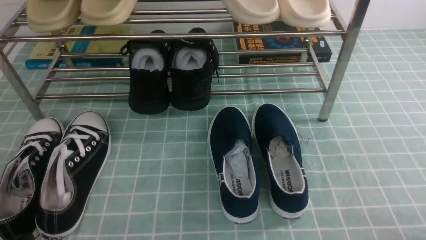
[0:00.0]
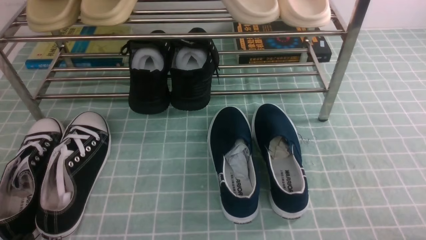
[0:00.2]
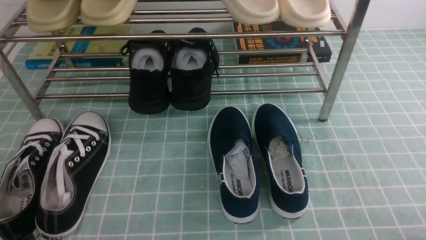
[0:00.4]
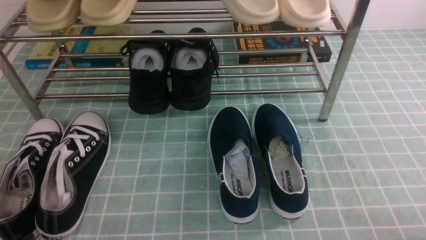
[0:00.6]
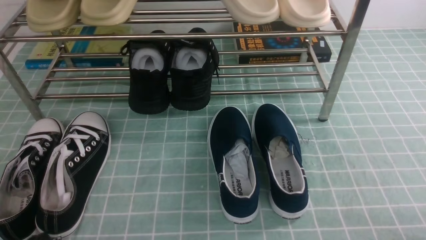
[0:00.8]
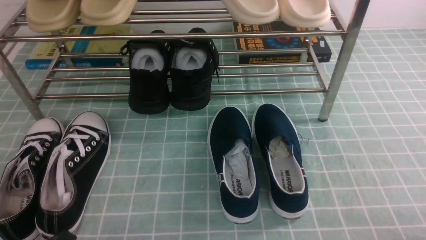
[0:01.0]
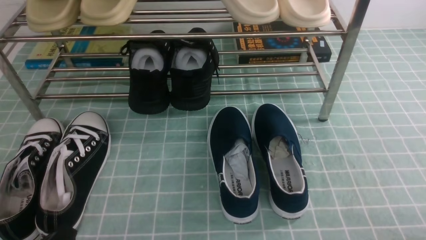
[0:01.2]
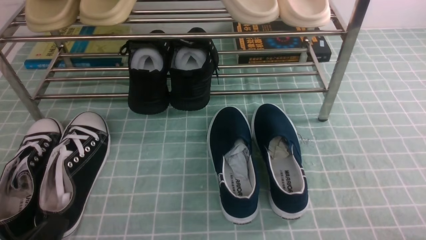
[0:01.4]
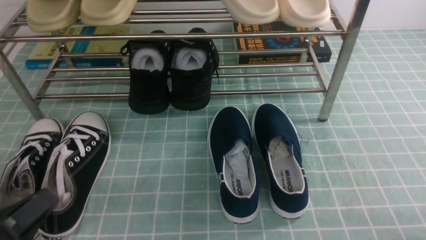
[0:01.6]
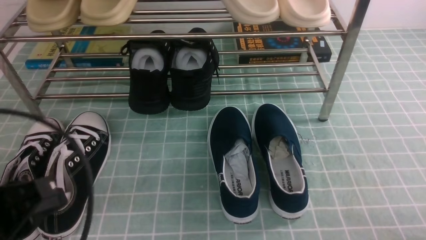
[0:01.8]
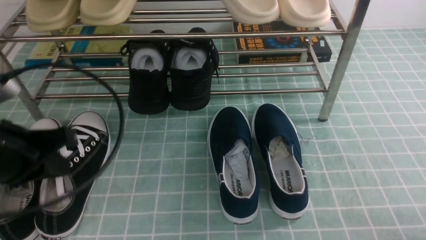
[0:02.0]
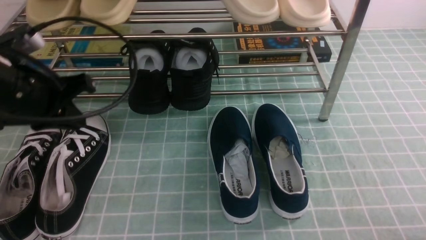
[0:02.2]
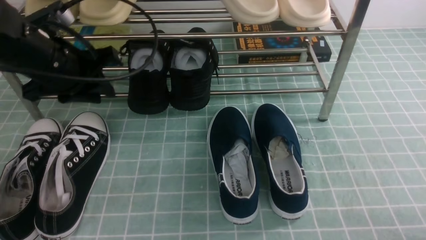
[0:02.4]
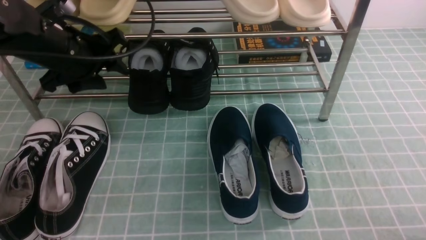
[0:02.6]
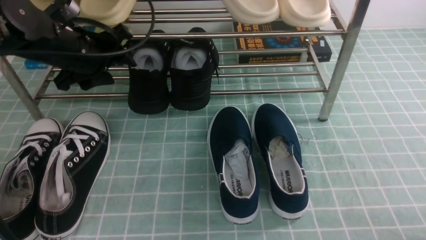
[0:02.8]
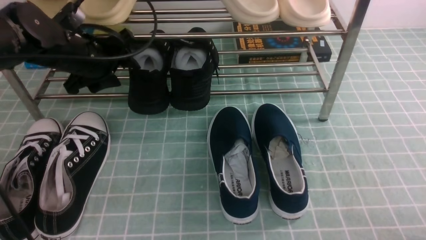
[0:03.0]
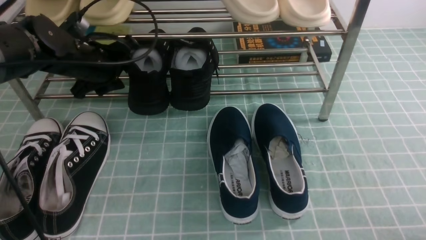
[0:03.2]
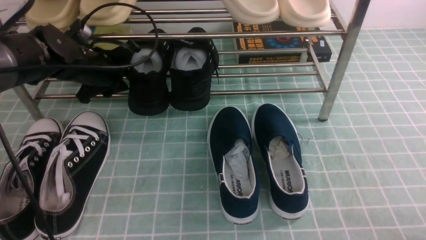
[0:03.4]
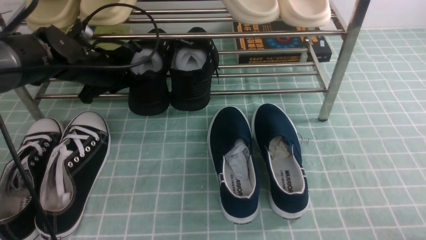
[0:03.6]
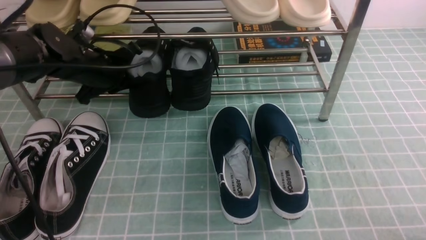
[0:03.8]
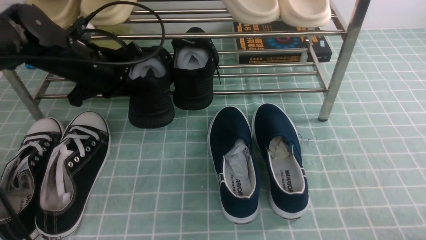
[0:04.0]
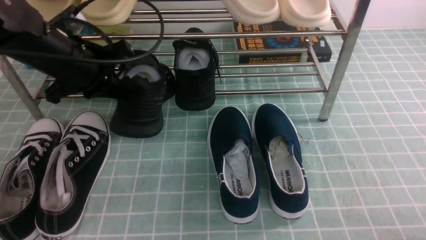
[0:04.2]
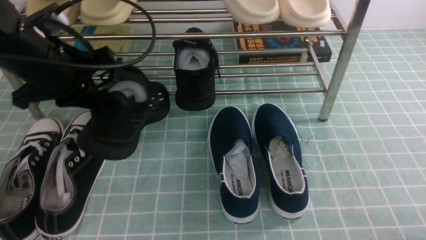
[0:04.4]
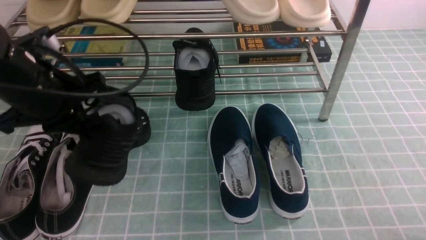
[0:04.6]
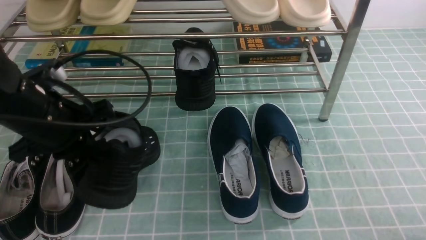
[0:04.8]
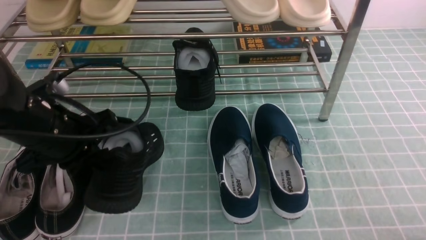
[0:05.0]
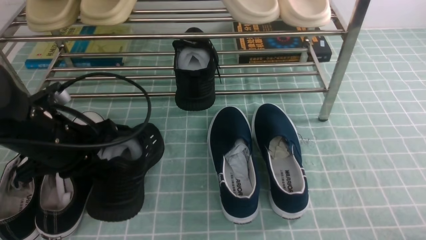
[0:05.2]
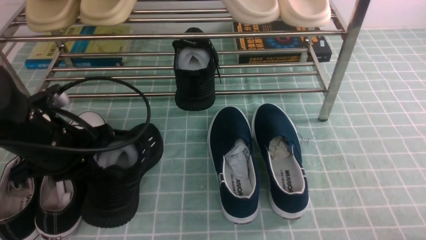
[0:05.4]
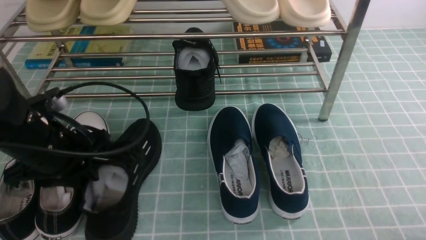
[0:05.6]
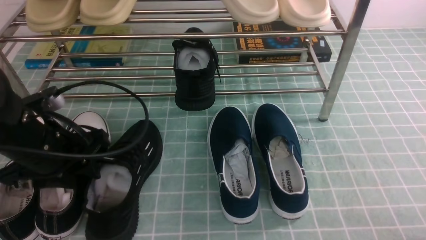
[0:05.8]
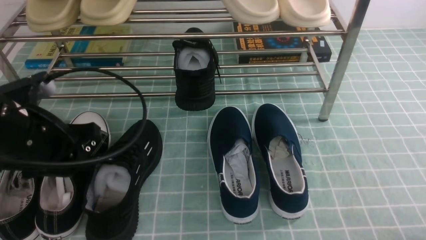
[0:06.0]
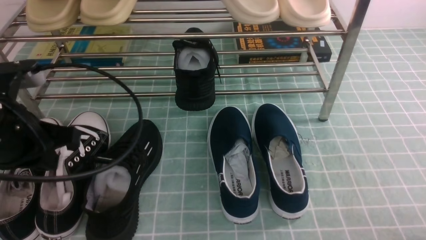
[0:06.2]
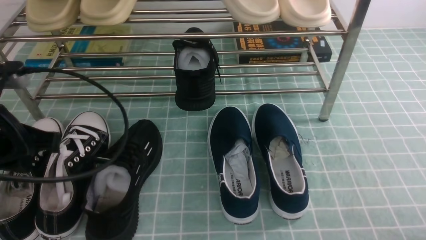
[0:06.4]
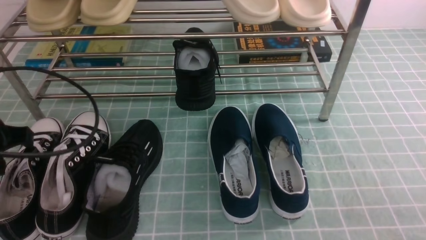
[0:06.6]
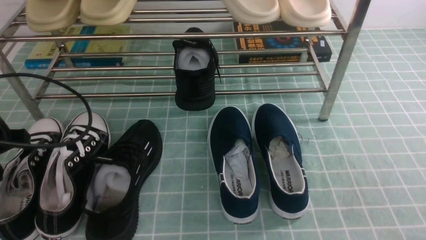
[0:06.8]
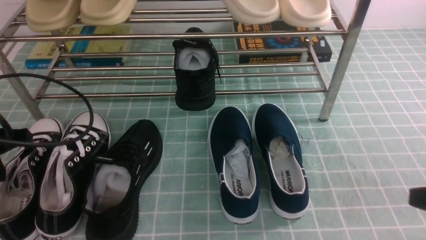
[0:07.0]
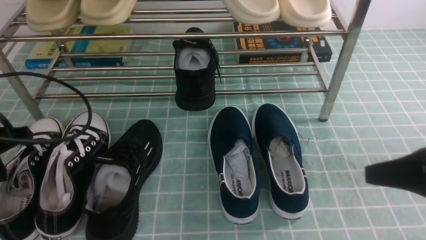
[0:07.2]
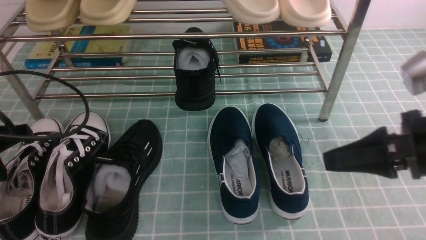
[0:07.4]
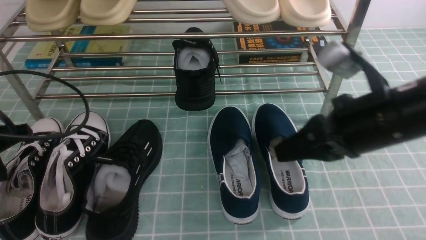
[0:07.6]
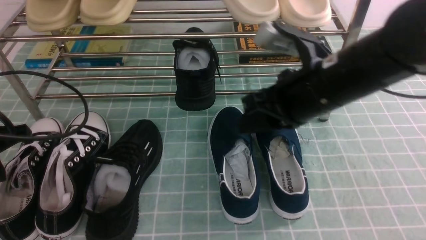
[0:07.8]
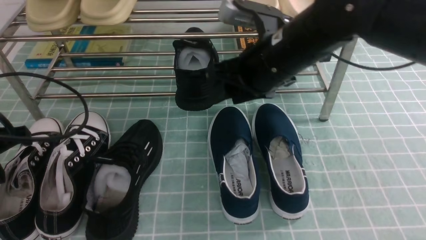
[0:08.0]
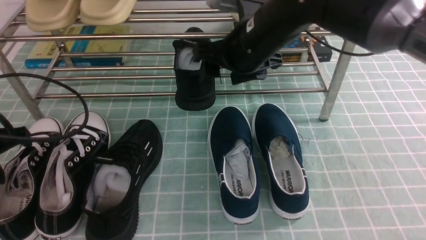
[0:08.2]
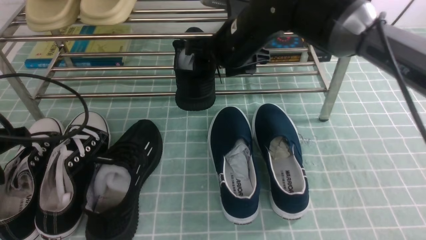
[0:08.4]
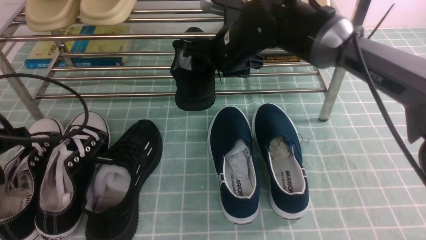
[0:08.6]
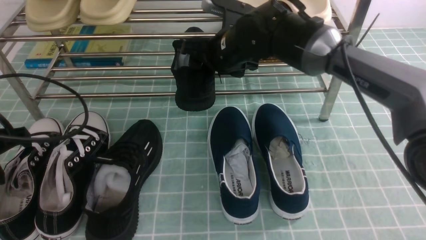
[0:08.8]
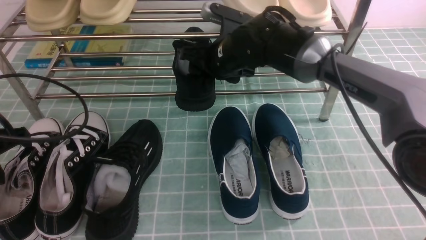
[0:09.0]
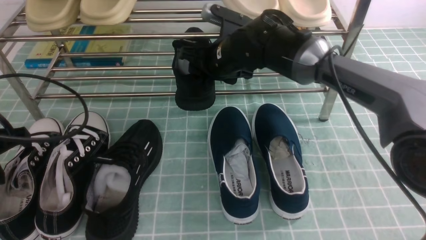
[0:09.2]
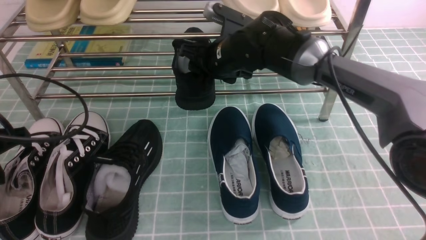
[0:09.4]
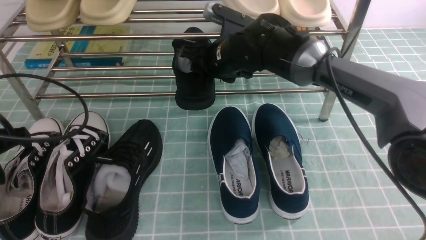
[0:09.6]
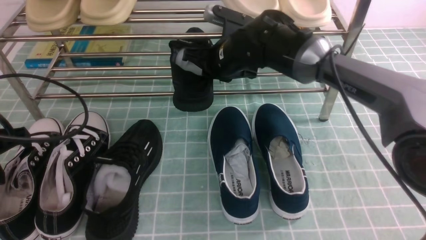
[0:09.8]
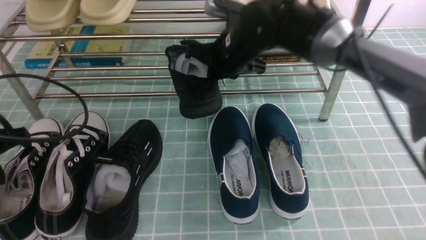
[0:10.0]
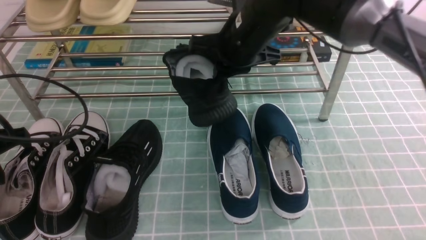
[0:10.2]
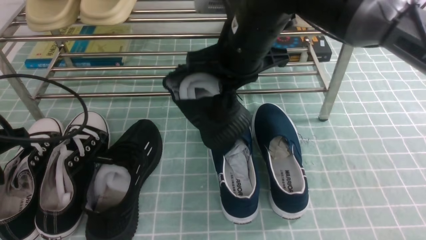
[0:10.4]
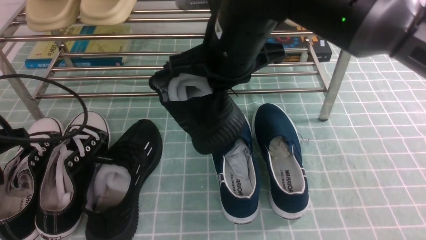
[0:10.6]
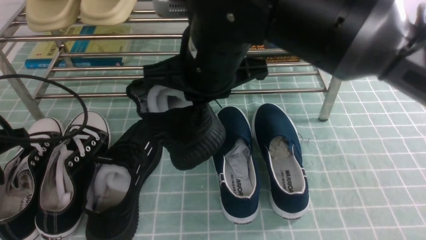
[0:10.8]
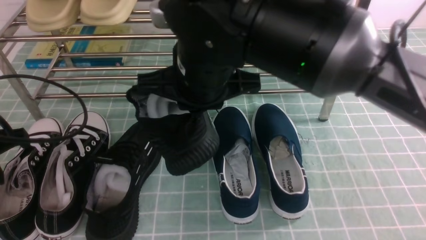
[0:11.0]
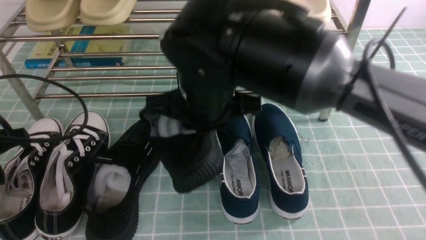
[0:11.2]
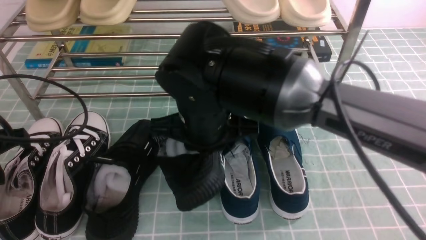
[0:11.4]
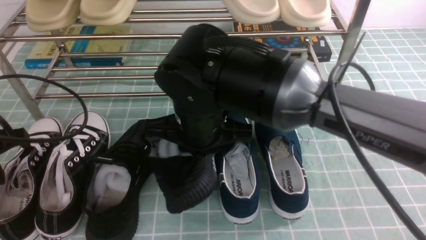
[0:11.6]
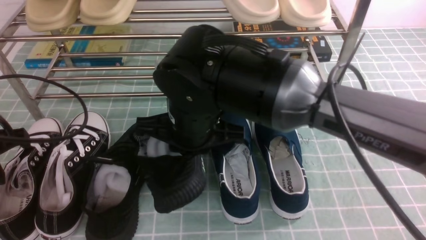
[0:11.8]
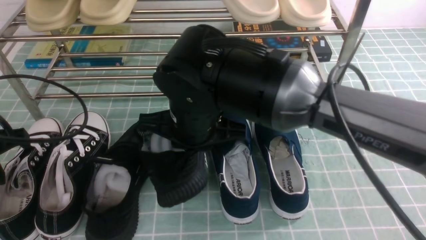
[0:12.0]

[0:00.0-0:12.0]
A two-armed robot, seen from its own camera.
Step, 0:00.0 to 0:03.8: use the left arm to clamp a shoe in the middle of the shoe rack.
Step, 0:04.2 to 0:05.8: Use your left arm to remove the clamped shoe from the shoe rack and put it down.
Step, 0:06.0 to 0:10.0: use the right arm to clamp a shoe in the middle of the shoe rack.
0:00.0 to 0:01.6: The left gripper is displaced upward by roughly 10 cm.
0:01.6 to 0:03.0: The left gripper goes approximately 30 cm forward, and opens its fingers.
0:03.0 to 0:04.4: The left gripper shifts roughly 10 cm backward, and closes.
0:04.4 to 0:06.0: The left gripper travels backward by roughly 5 cm, and opens its fingers.
0:06.0 to 0:07.6: The right gripper moves forward, to the left and upward, some 30 cm. The left gripper shifts some 5 cm to the left, and closes.
0:07.6 to 0:09.0: The right gripper shifts some 25 cm forward and to the left, and opens its fingers.
0:09.0 to 0:10.4: The right gripper goes roughly 15 cm backward and upward, and closes up.
0:10.4 to 0:12.0: The right gripper moves downward, to the left and backward, some 10 cm.

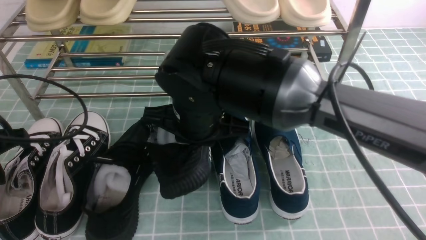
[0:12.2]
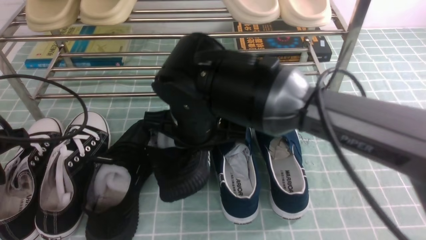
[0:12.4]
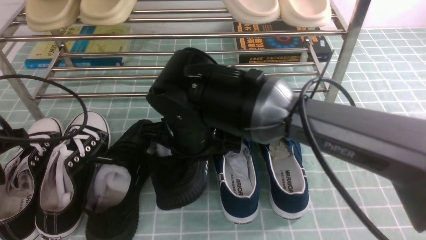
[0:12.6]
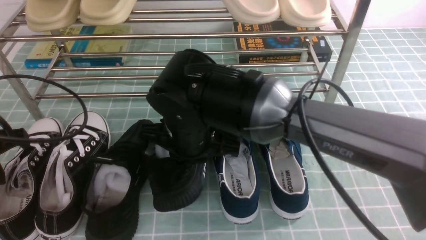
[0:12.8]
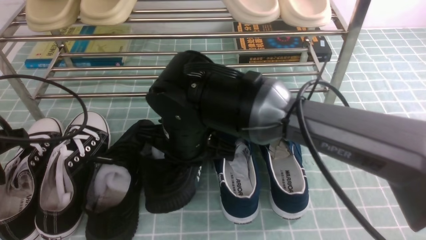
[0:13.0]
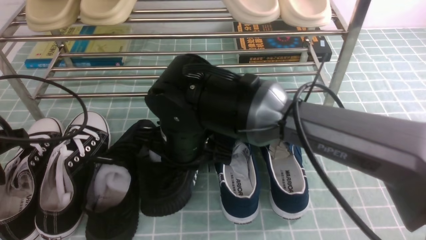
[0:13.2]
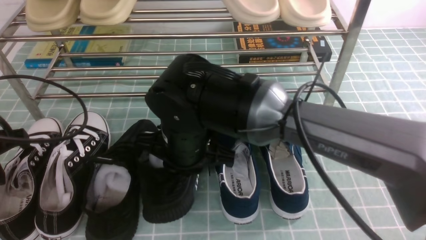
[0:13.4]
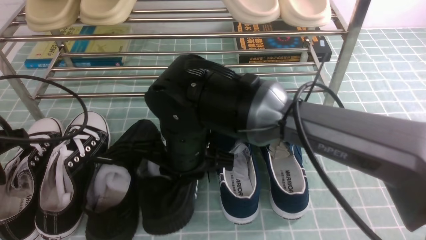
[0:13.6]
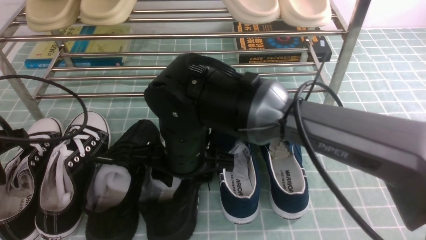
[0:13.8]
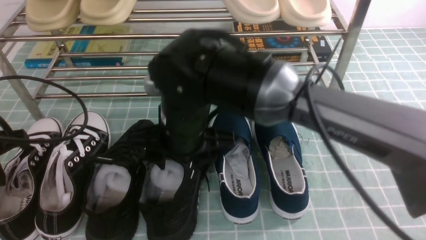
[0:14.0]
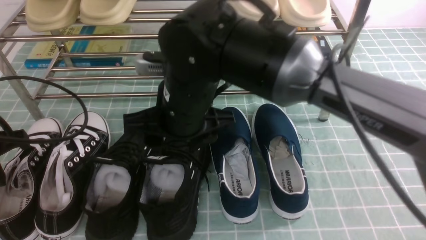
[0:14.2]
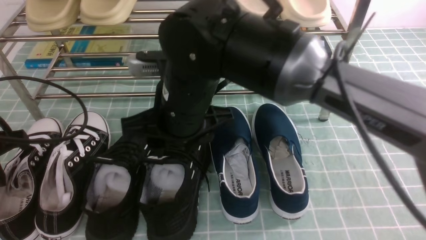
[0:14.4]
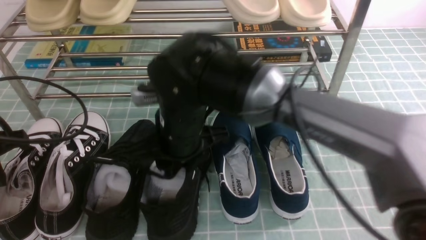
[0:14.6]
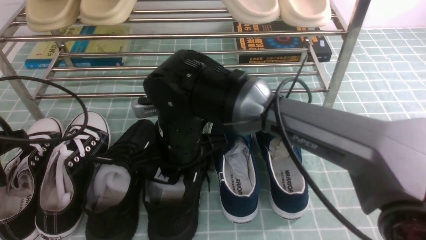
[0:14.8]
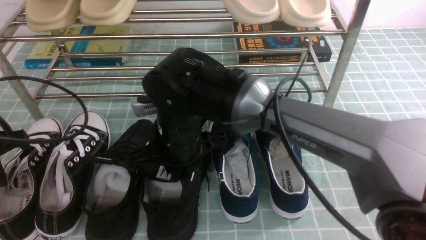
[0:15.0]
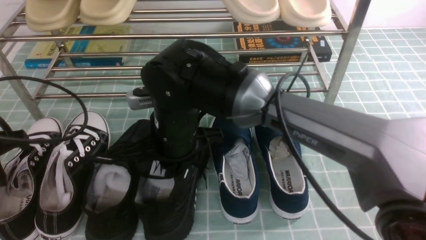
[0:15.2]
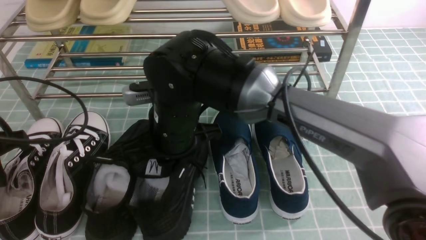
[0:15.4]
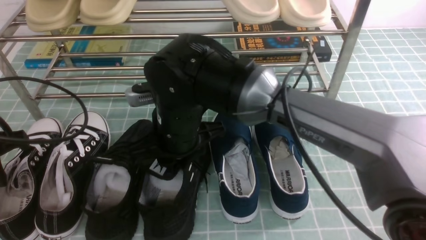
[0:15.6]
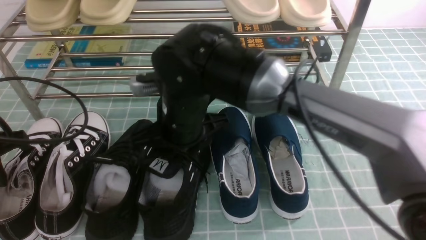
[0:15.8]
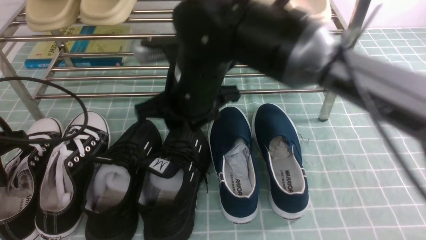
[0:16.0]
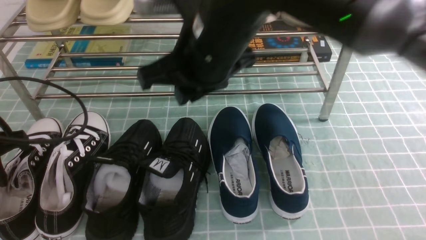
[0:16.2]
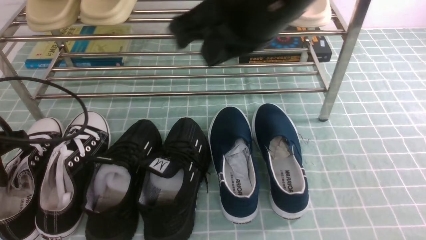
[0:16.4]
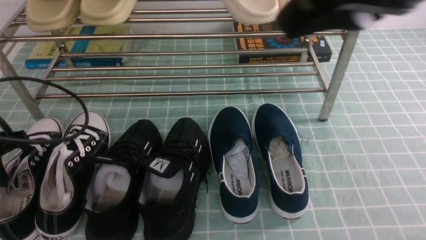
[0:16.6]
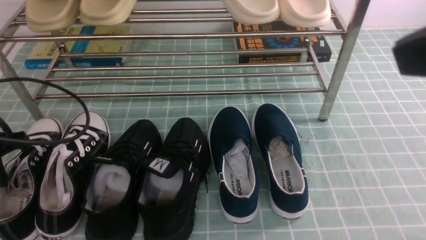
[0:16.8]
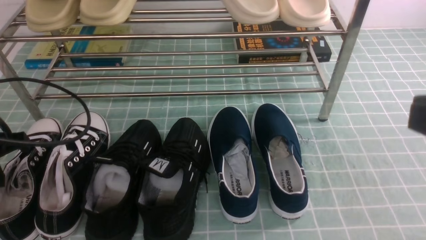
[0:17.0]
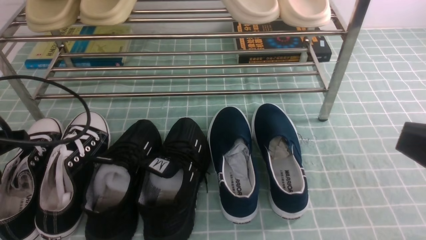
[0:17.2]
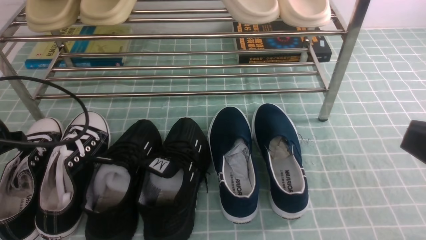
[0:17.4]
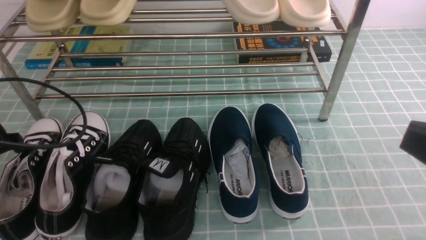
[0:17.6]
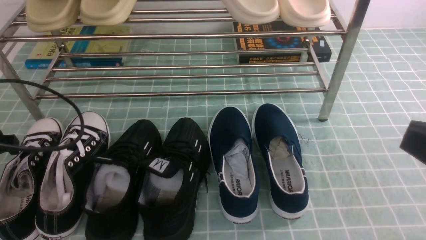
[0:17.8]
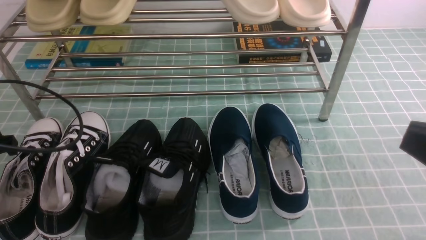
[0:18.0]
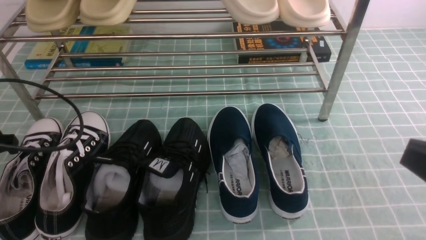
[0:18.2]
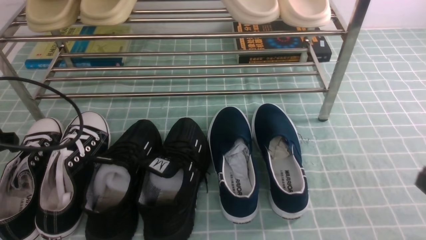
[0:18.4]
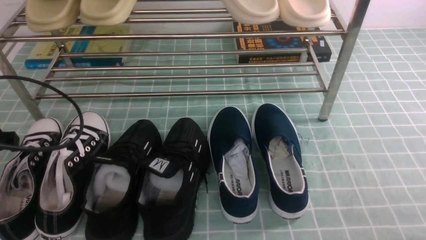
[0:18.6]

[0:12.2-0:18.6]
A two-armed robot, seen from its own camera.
0:12.2 to 0:13.8: The right gripper opens up.
0:13.8 to 0:15.4: The right gripper closes up.
0:15.4 to 0:17.0: The right gripper is displaced to the right, backward and upward by roughly 40 cm.
0:17.0 to 0:18.6: The right gripper heads downward, covering about 20 cm.
